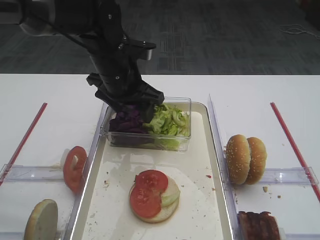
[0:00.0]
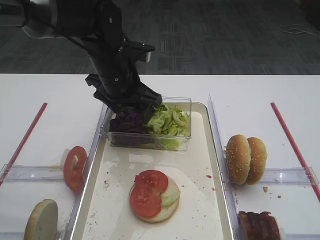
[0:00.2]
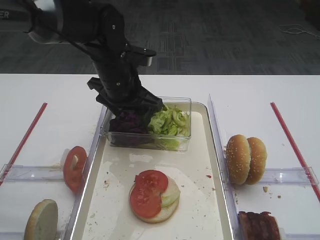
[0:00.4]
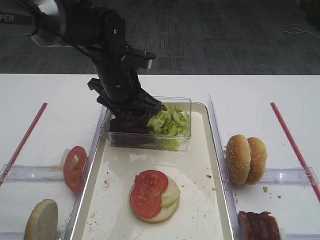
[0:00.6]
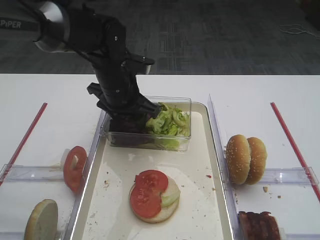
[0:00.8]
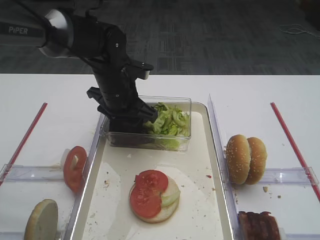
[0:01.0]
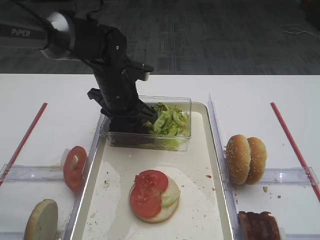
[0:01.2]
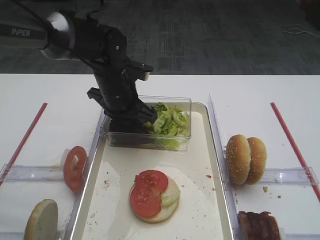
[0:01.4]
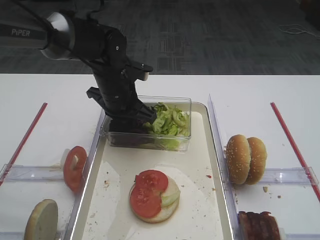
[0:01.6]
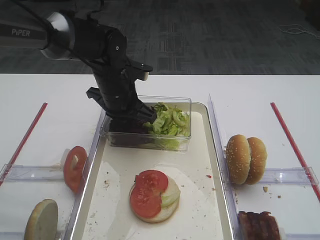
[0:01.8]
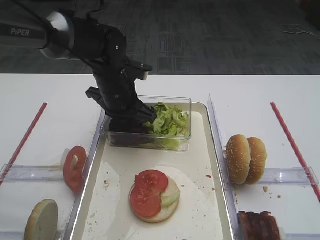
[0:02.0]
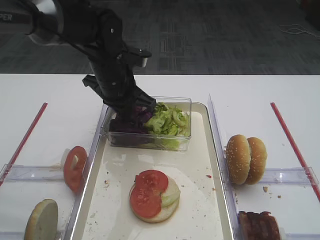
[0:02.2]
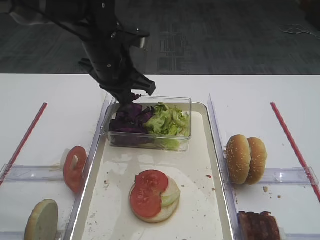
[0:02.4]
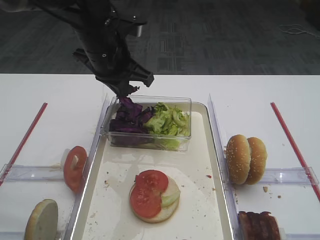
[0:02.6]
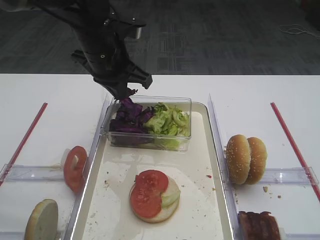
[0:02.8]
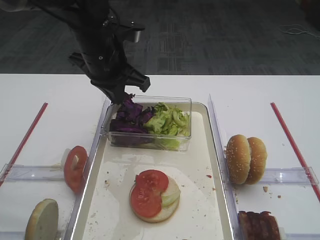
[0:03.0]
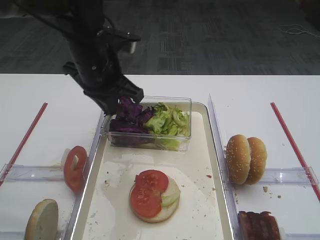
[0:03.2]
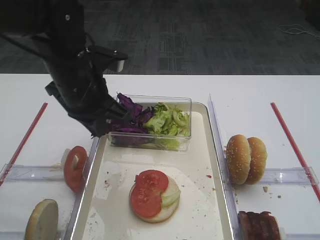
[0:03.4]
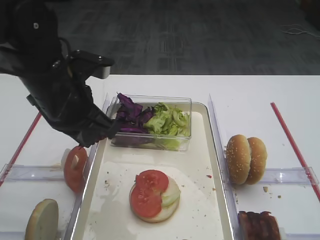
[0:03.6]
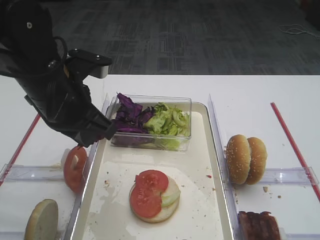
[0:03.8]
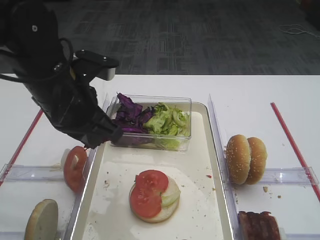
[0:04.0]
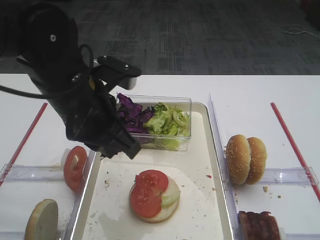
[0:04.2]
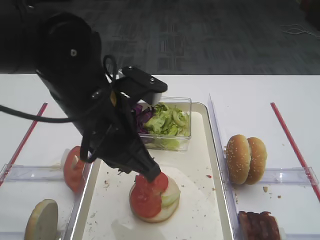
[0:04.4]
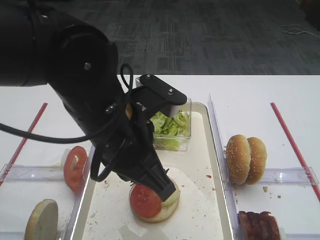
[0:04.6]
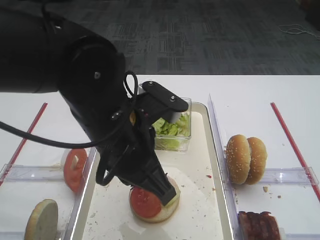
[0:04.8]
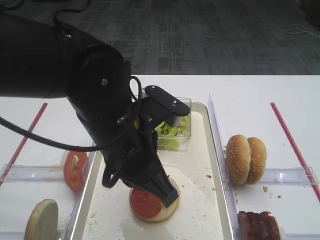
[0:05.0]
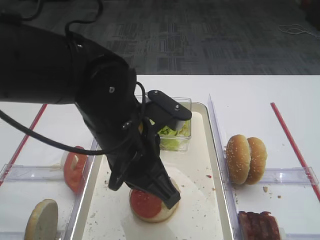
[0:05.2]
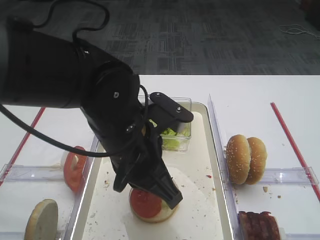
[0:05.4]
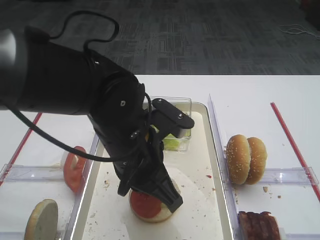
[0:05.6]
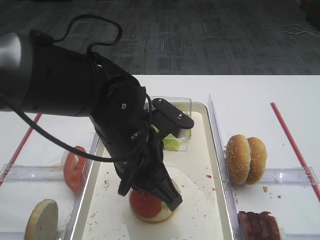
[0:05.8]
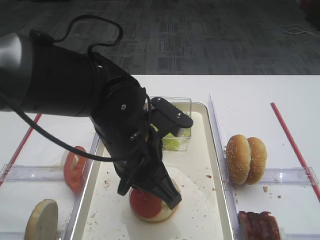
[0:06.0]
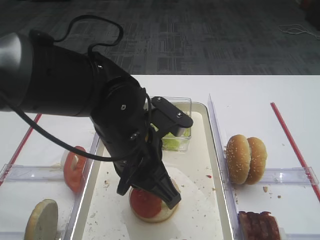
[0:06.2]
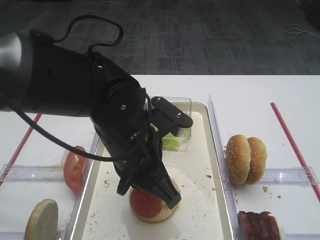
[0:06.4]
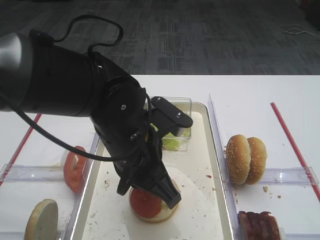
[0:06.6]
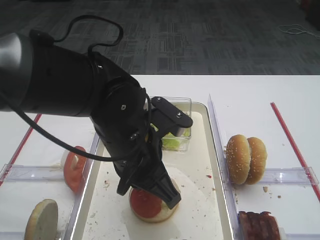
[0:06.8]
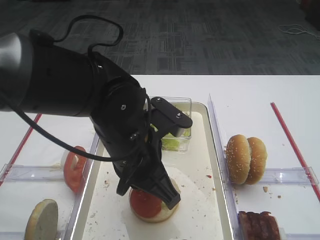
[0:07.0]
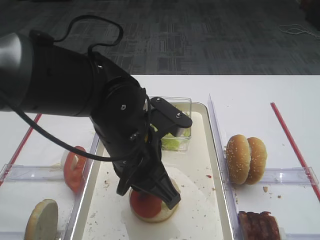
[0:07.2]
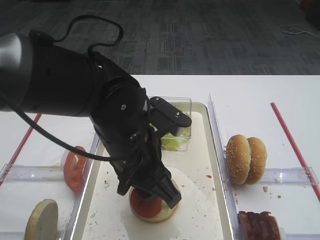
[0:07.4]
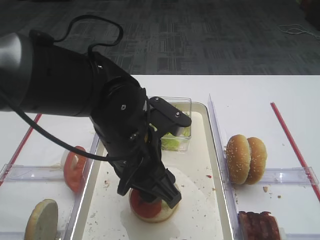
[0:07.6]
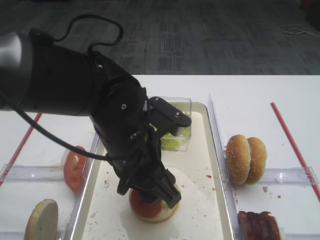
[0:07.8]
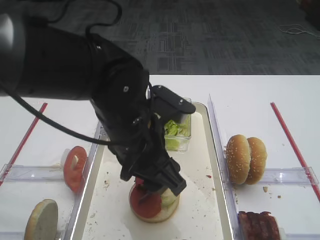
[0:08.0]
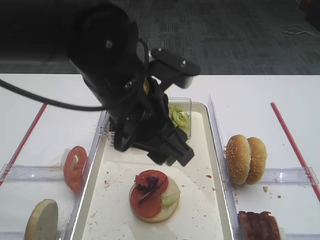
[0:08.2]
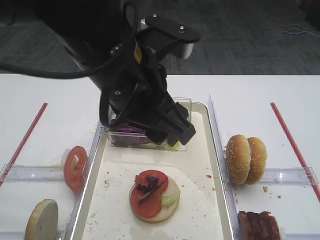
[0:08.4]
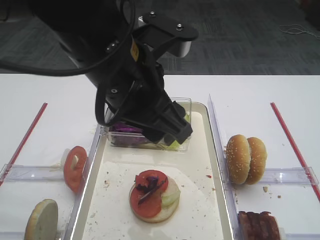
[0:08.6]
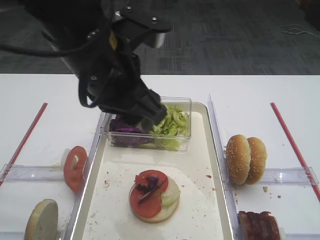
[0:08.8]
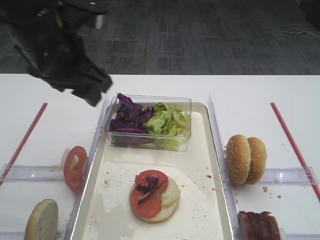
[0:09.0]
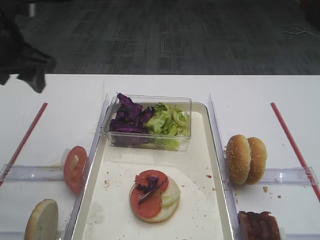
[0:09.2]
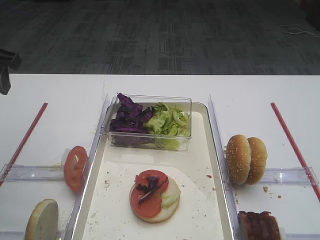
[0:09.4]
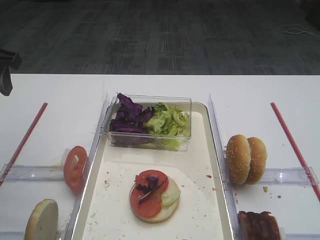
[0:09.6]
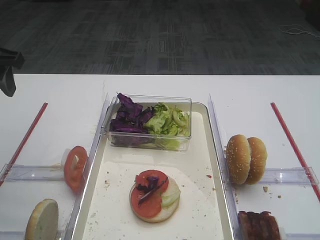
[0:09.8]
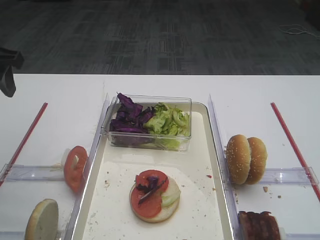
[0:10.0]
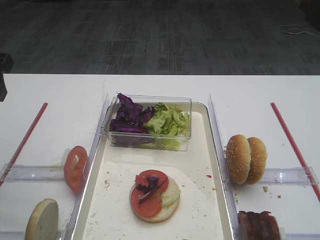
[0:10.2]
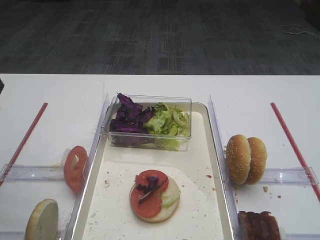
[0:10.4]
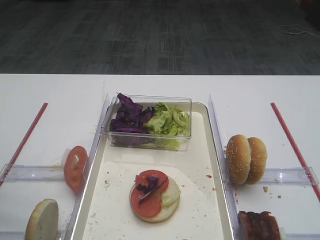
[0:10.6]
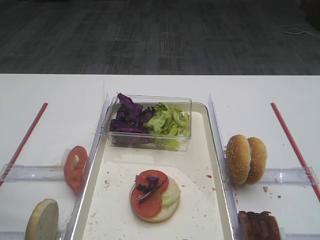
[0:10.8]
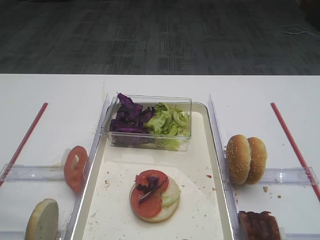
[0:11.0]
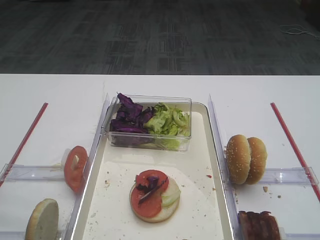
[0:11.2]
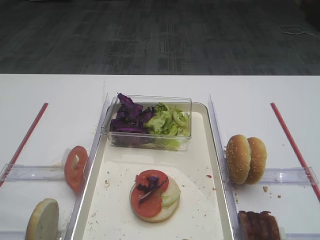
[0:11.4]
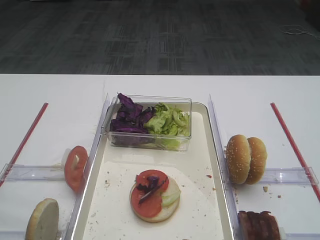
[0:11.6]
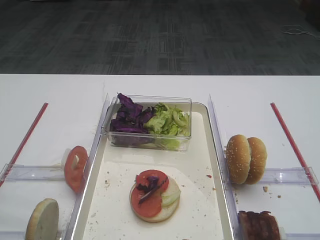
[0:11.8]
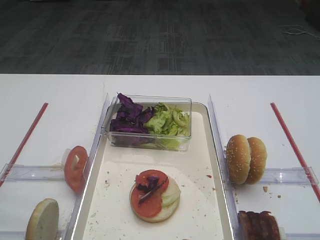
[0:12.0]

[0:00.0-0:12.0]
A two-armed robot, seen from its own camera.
Step, 0:00.0 to 0:02.8: Pick up the purple cabbage with the left gripper.
Step, 0:03.0 to 0:08.0: Place the purple cabbage on the tomato slice with the left gripper.
0:00.0 to 0:01.6: The left gripper travels downward by about 5 cm, and closes up.
0:01.6 to 0:03.0: The left gripper heads upward, covering approximately 10 cm.
0:03.0 to 0:04.4: The left gripper moves backward, roughly 15 cm.
0:04.4 to 0:06.0: The left gripper moves some 5 cm.
0:06.0 to 0:07.6: The left gripper opens its fingers.
0:07.6 to 0:09.0: The left gripper goes roughly 15 cm to the left, upward and forward.
0:09.0 to 0:10.4: The left gripper heads to the left, covering roughly 15 cm.
0:10.4 to 0:12.0: The left gripper is displaced backward by about 25 cm.

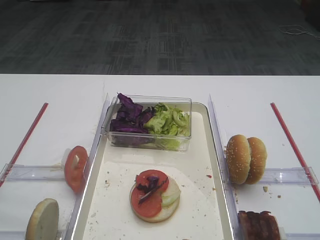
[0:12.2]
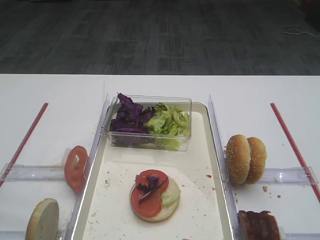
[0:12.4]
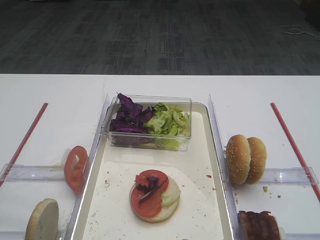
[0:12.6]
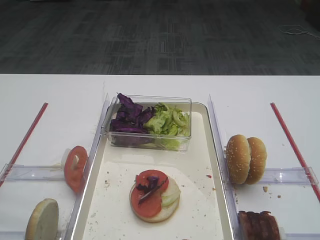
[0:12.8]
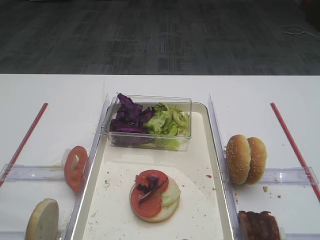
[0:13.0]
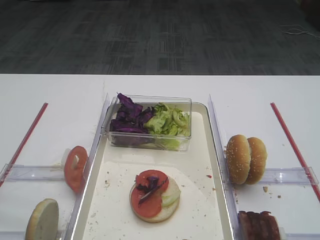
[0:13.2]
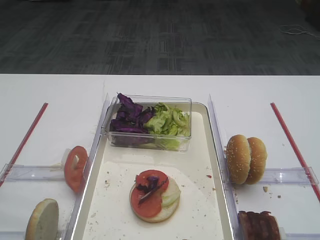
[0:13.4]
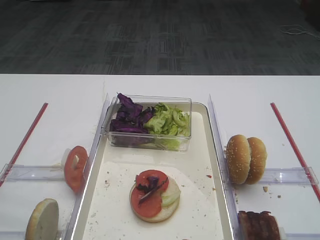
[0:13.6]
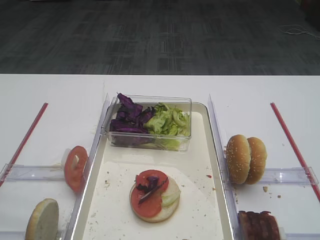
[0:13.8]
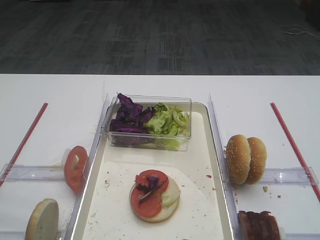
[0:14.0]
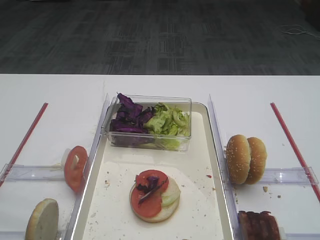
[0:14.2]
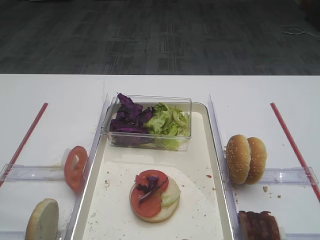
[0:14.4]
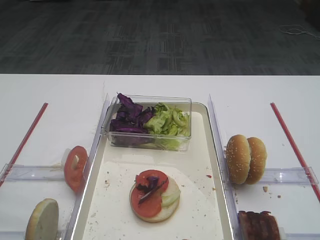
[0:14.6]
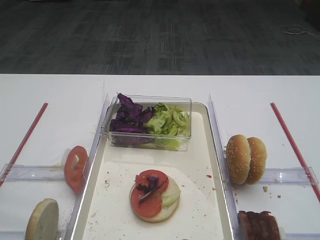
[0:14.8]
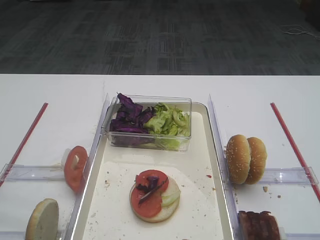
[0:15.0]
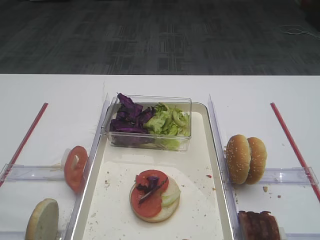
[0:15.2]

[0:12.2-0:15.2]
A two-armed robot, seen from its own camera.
0:12.2 to 0:15.2: The two grippers keep their place.

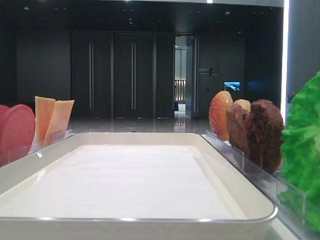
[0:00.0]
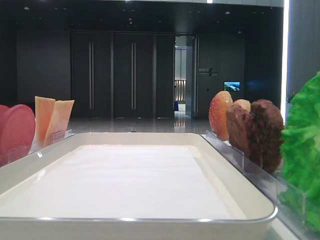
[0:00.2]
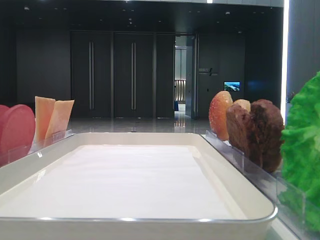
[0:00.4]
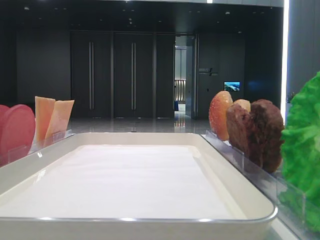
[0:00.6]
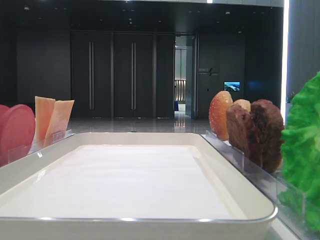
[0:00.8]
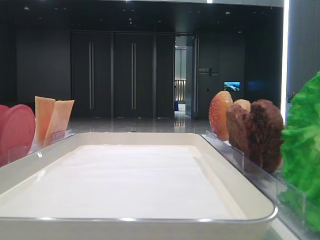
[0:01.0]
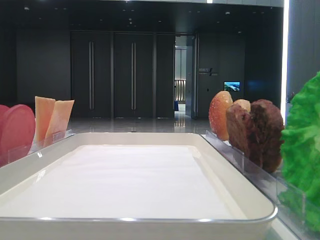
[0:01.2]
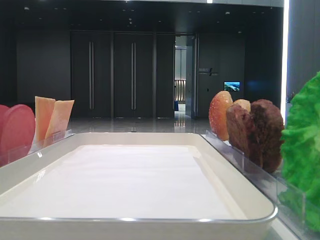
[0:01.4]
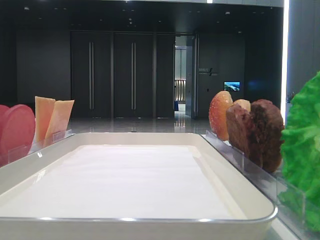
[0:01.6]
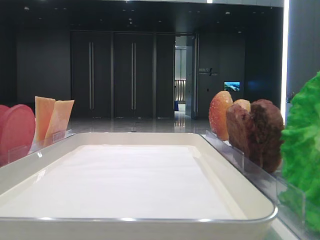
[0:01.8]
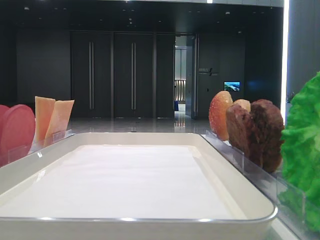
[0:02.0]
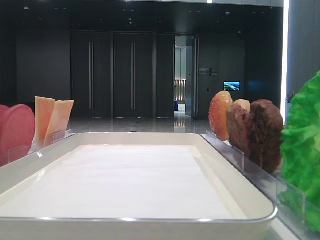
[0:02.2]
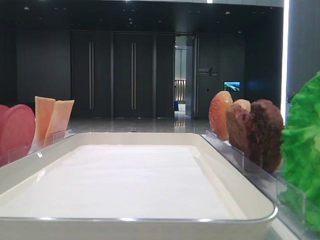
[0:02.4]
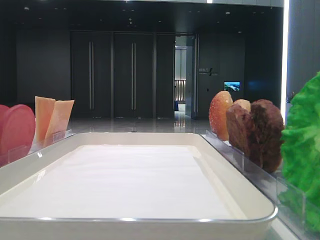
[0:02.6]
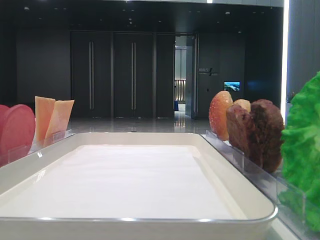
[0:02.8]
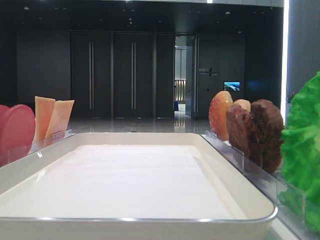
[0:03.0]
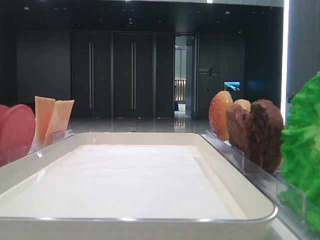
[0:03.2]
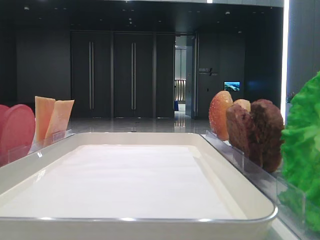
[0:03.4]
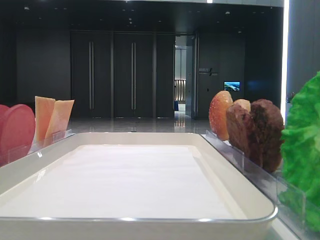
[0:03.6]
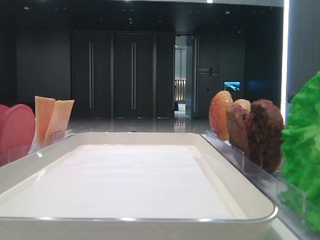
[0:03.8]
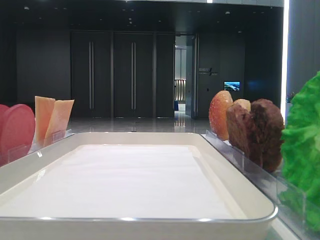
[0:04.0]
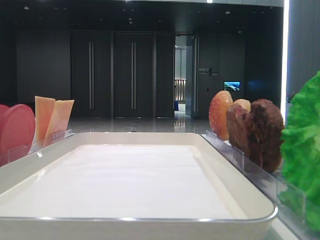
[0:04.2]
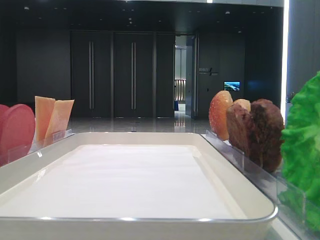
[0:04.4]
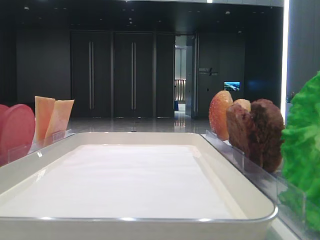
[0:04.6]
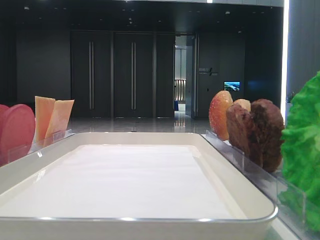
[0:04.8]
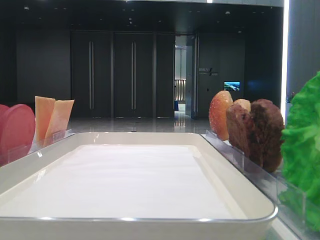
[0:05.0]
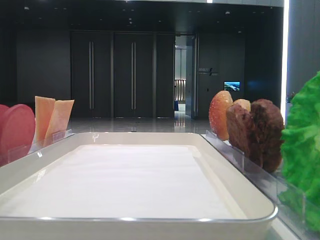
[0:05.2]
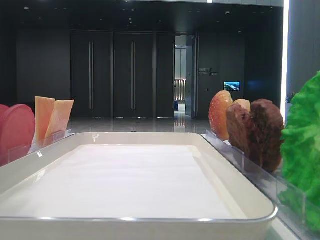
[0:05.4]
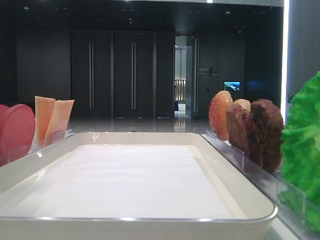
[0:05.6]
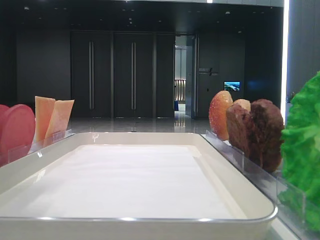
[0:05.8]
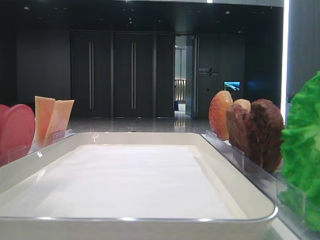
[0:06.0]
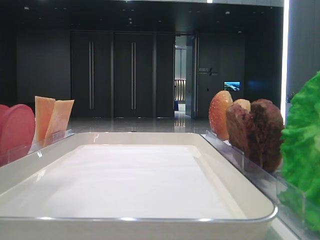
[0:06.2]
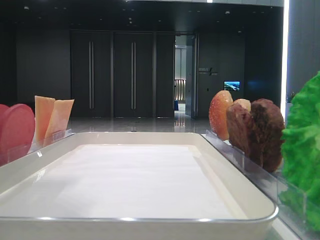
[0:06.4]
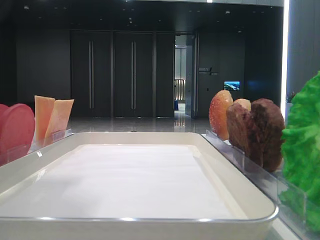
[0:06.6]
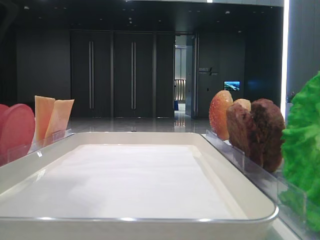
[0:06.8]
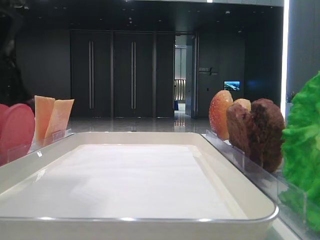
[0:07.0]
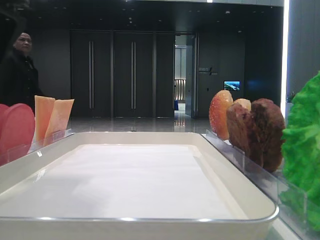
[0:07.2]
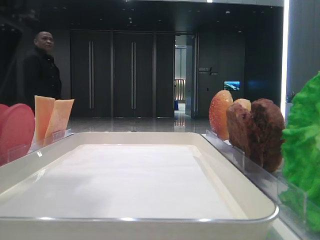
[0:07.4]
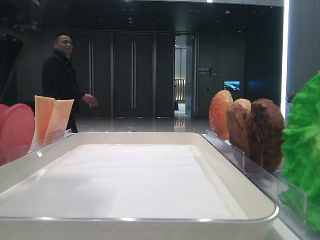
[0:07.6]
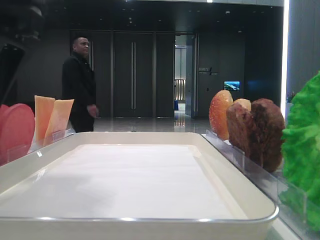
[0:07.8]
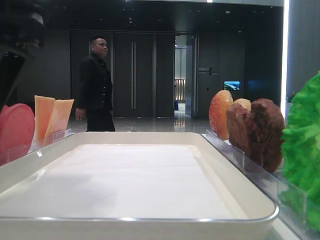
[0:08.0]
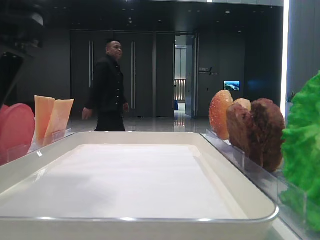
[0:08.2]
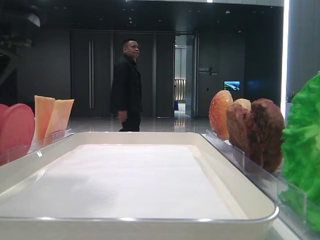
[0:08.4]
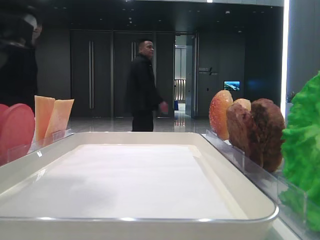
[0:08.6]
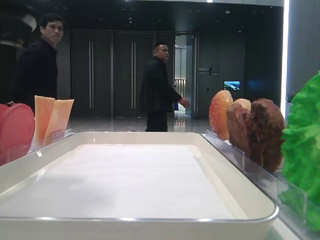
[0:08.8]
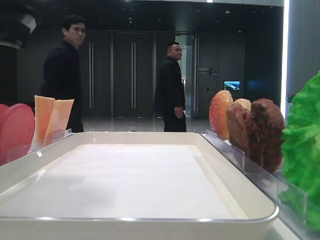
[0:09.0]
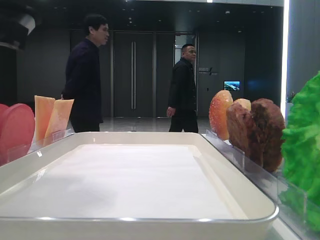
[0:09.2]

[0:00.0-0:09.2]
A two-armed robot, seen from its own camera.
0:04.6 to 0:06.2: The left gripper goes some 15 cm to the right.
0:06.2 to 0:07.6: The left gripper goes some 5 cm downward.
0:07.6 to 0:09.2: The left gripper closes up.
